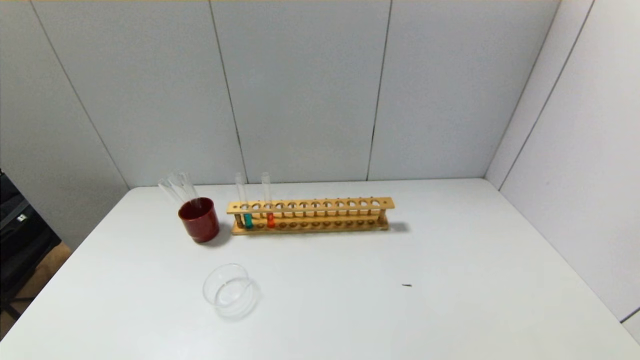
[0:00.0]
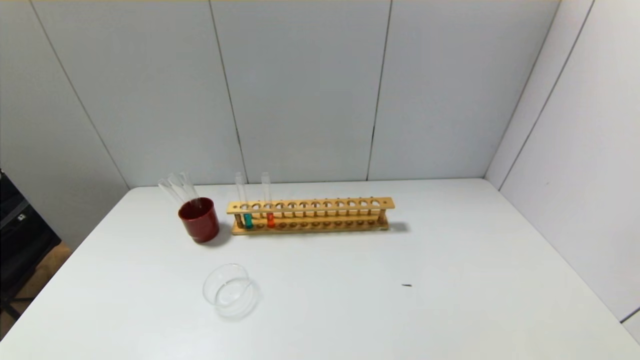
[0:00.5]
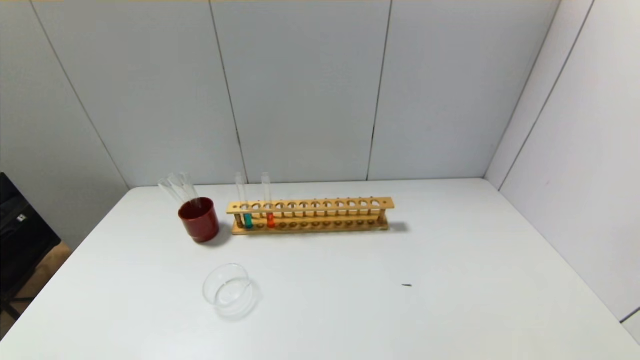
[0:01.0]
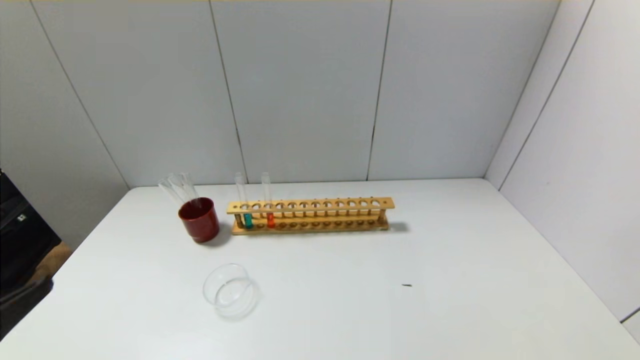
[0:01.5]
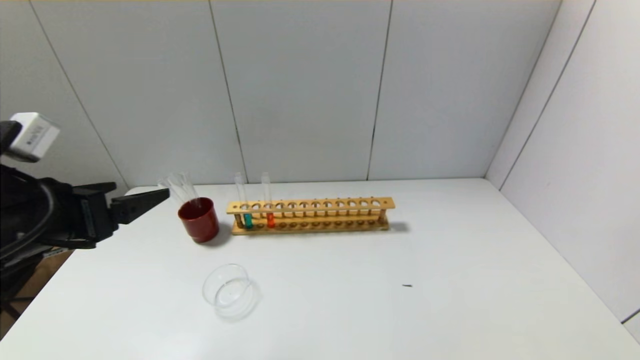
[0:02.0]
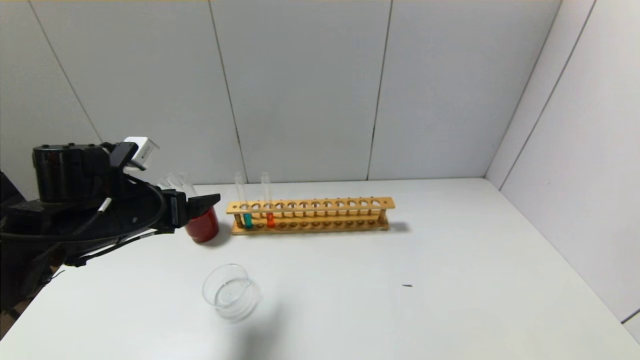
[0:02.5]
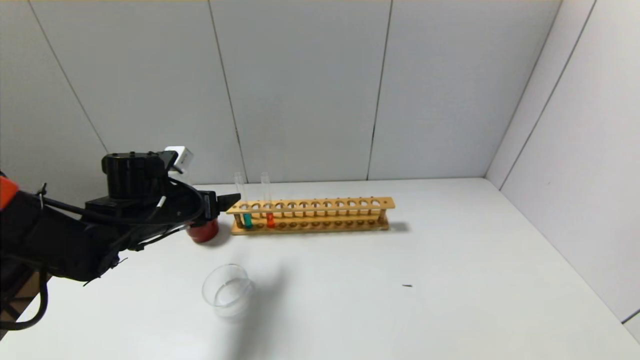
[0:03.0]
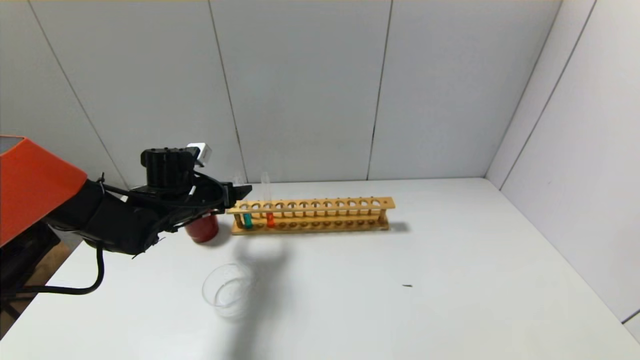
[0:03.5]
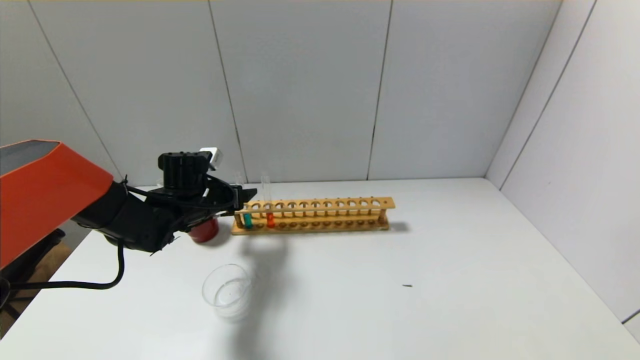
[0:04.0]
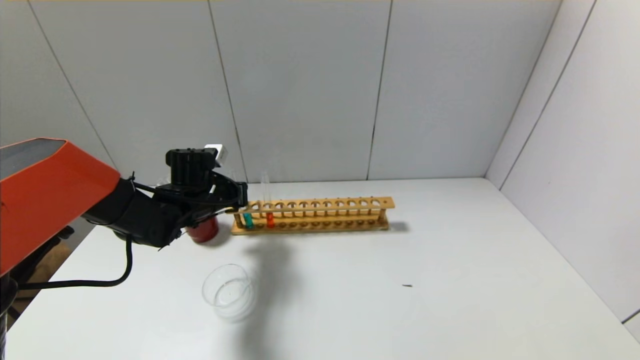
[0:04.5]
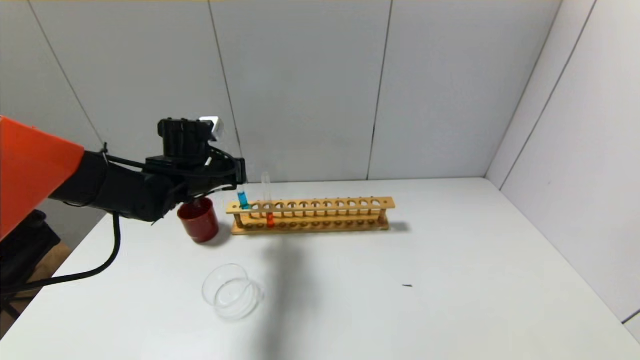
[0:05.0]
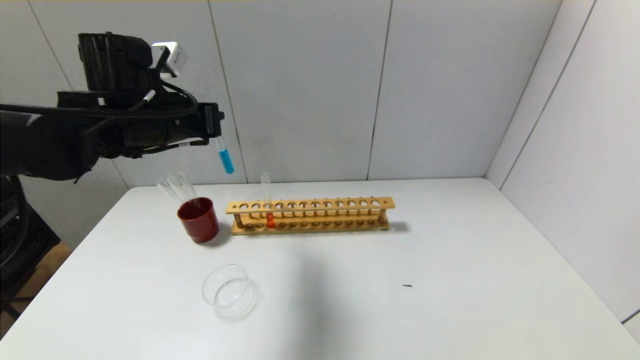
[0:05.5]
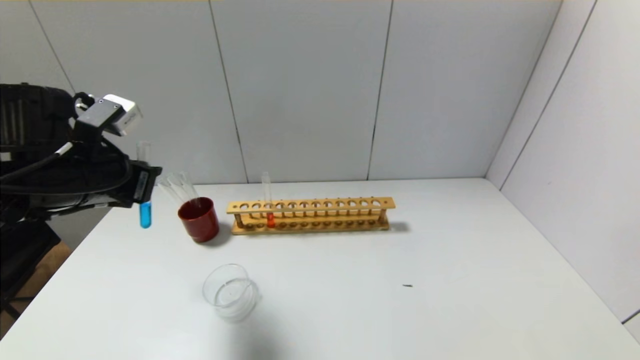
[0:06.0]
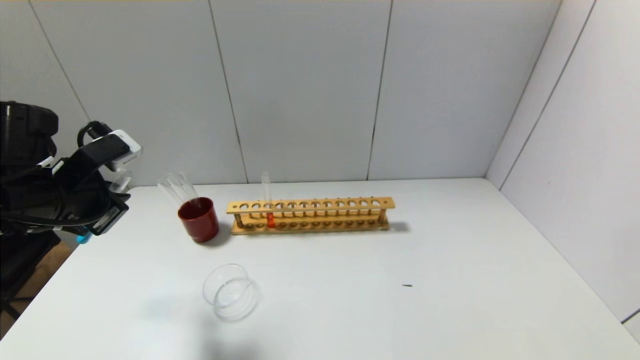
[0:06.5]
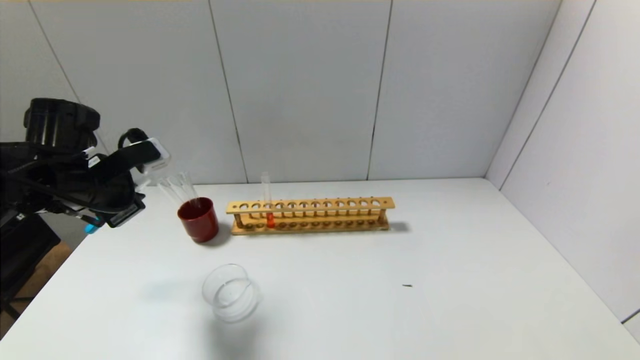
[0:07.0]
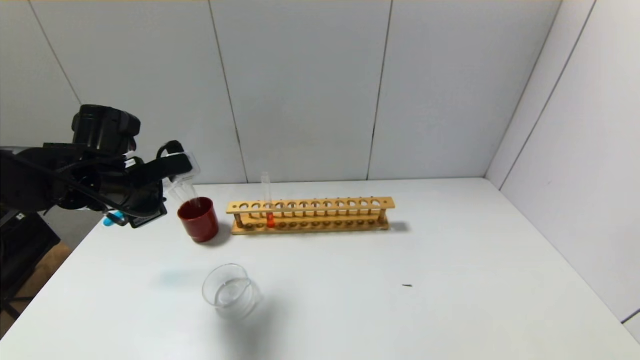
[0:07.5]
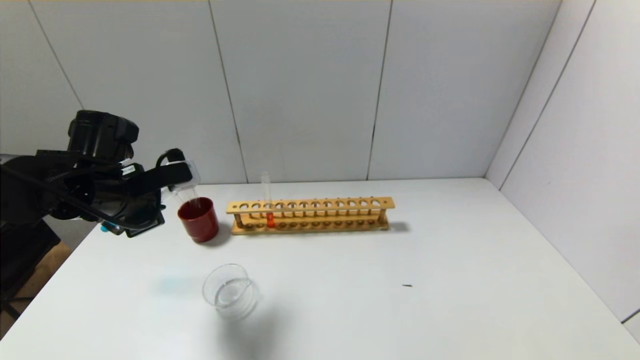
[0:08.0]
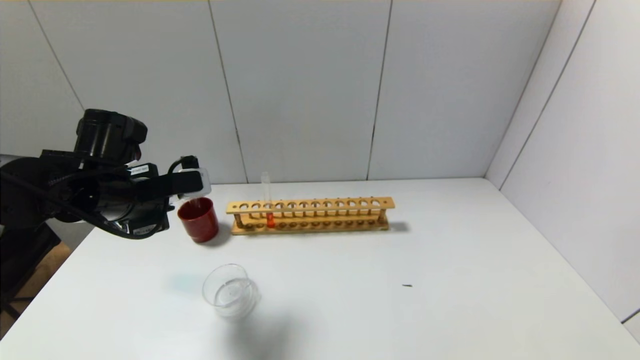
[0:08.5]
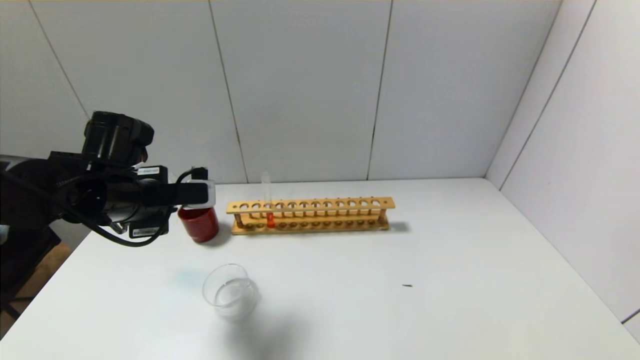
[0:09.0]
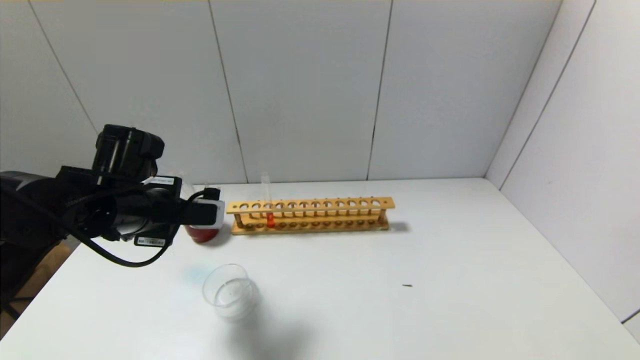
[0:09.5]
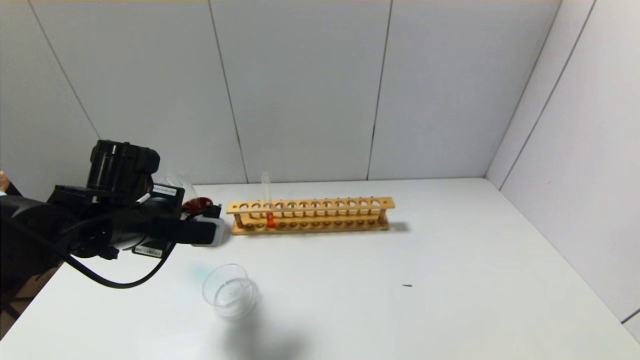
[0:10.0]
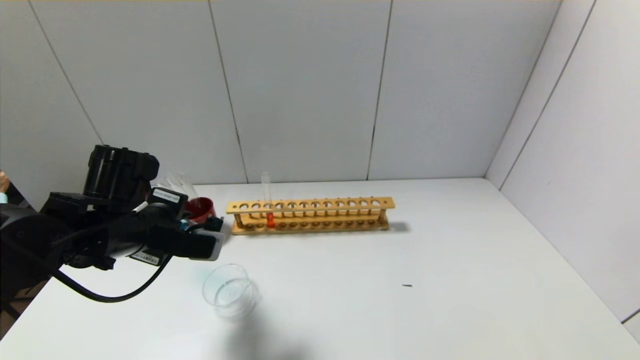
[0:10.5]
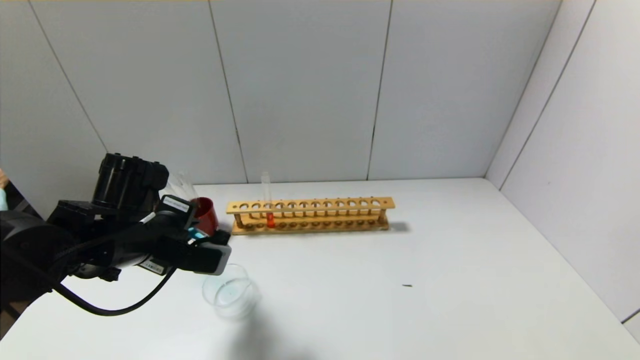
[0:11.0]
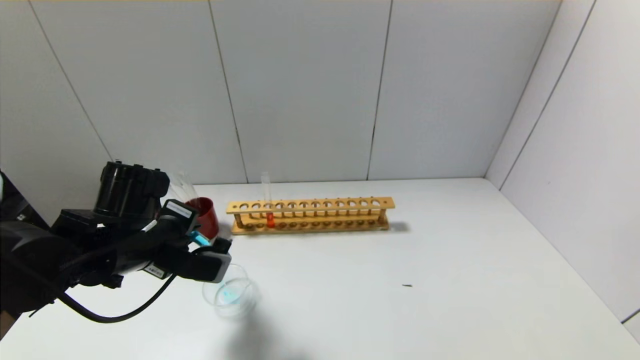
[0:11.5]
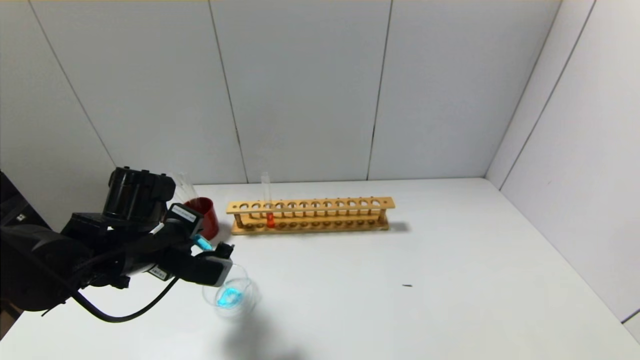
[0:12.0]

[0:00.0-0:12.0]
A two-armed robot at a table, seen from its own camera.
Step, 0:00.0 to 0:04.5: Grasp the blue reagent with the left gripper.
0:00.0 to 0:02.0: The left gripper heads forward and upward, covering some 25 cm.
0:02.0 to 0:04.0: The left gripper shifts about 25 cm forward and downward.
0:04.0 to 0:06.0: The left gripper heads backward, upward and to the left, covering about 20 cm, and closes its fingers.
0:06.0 to 0:08.0: The left gripper moves roughly 5 cm.
0:08.0 to 0:10.0: The left gripper shifts by approximately 5 cm.
0:10.0 to 0:12.0: The grippers make only small movements.

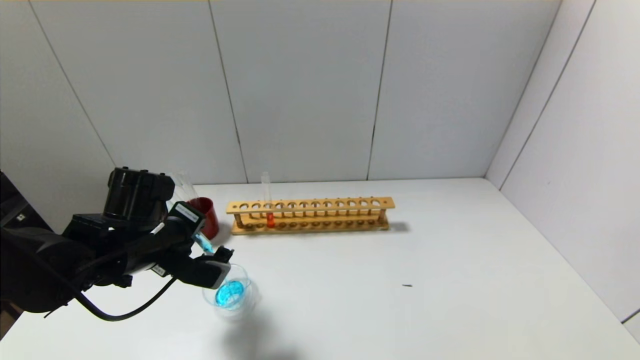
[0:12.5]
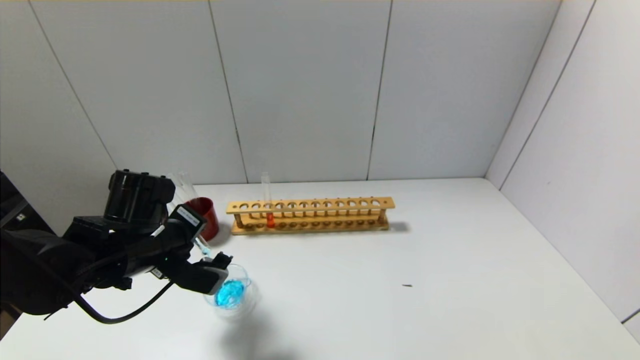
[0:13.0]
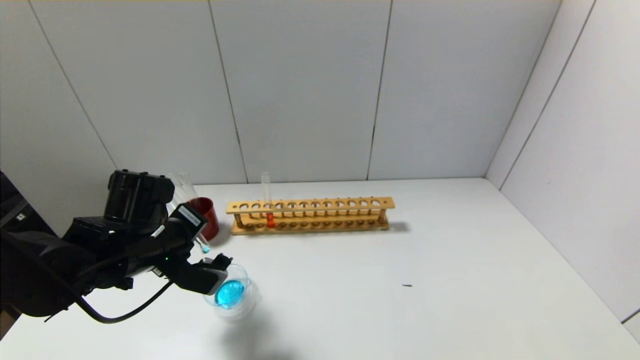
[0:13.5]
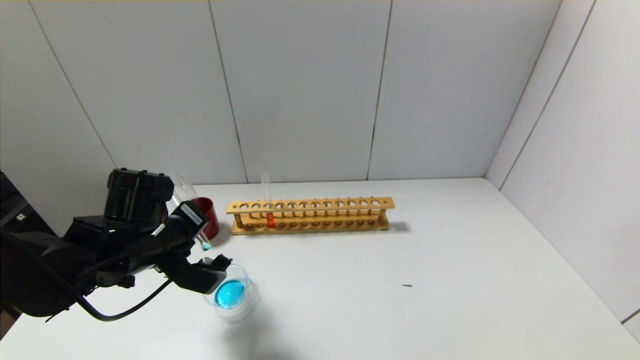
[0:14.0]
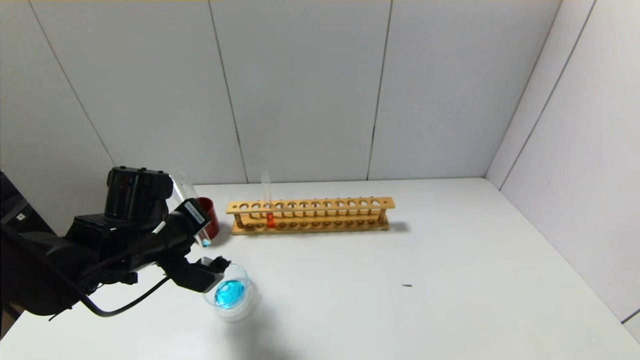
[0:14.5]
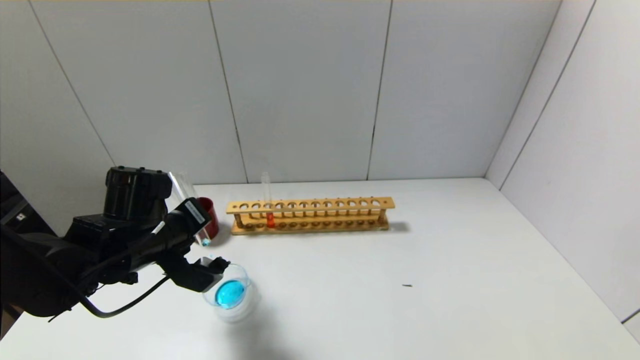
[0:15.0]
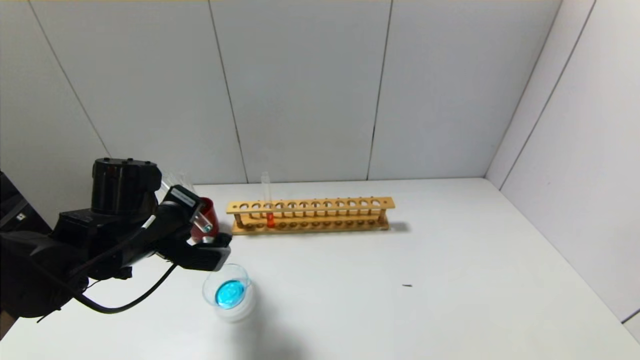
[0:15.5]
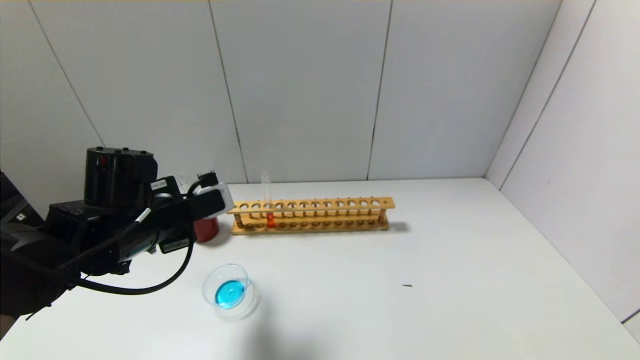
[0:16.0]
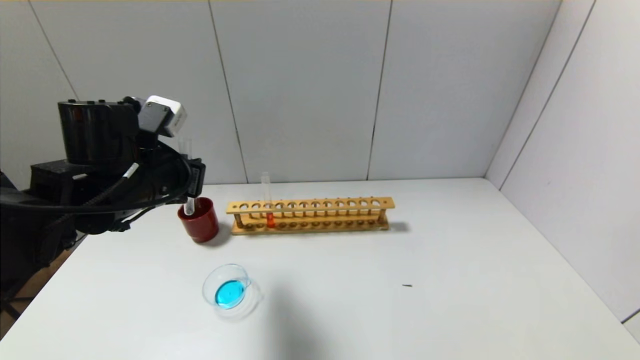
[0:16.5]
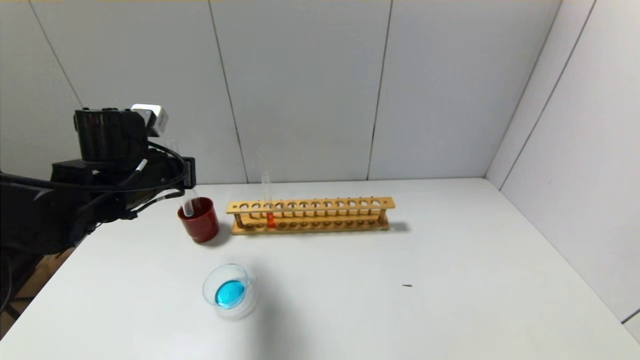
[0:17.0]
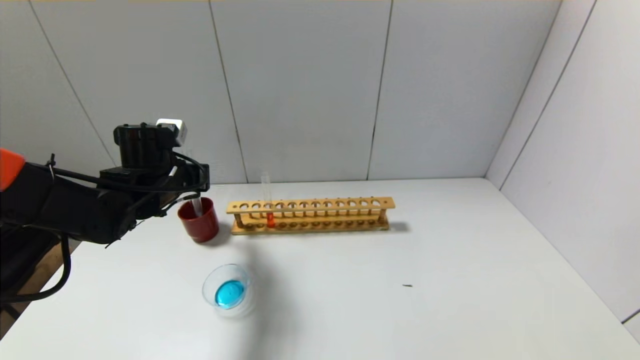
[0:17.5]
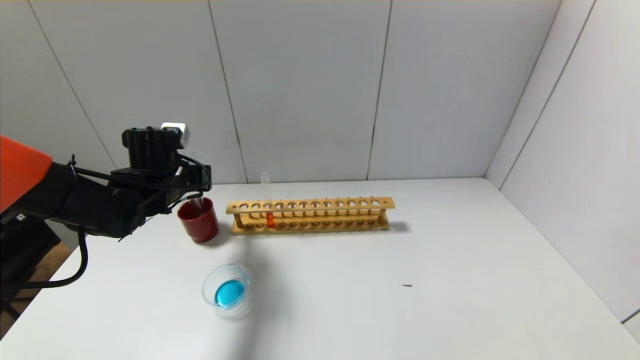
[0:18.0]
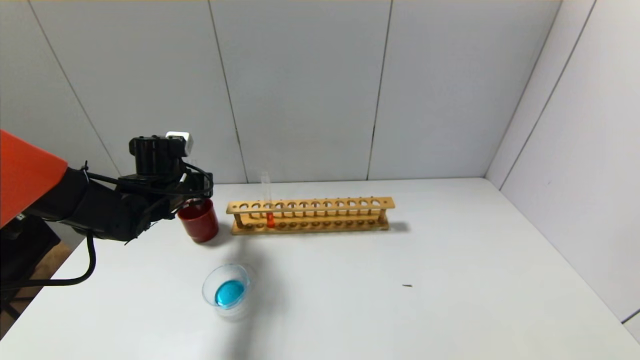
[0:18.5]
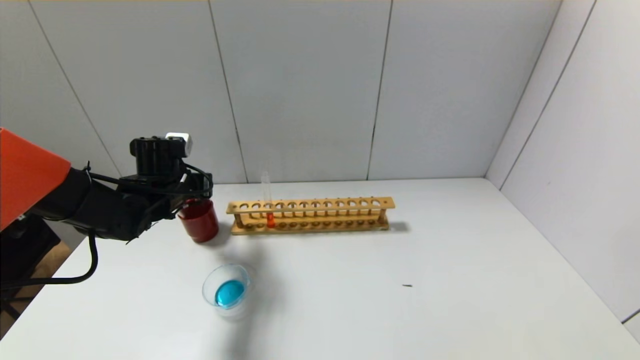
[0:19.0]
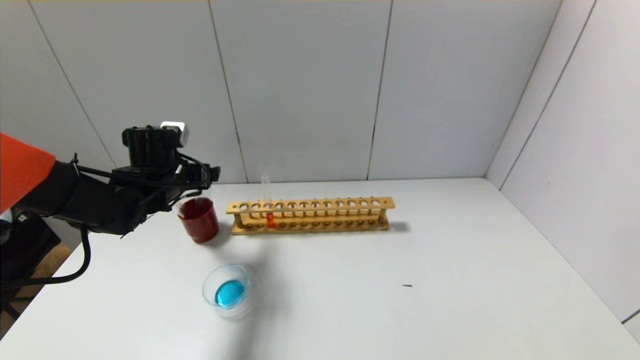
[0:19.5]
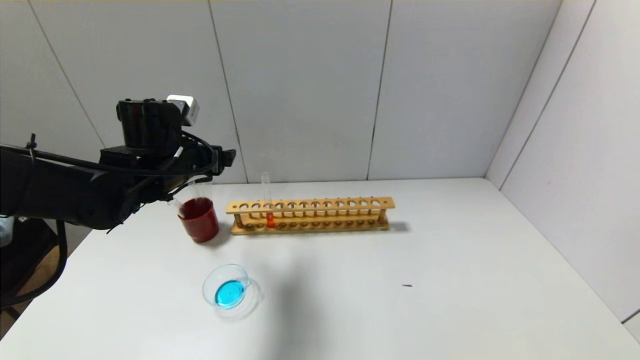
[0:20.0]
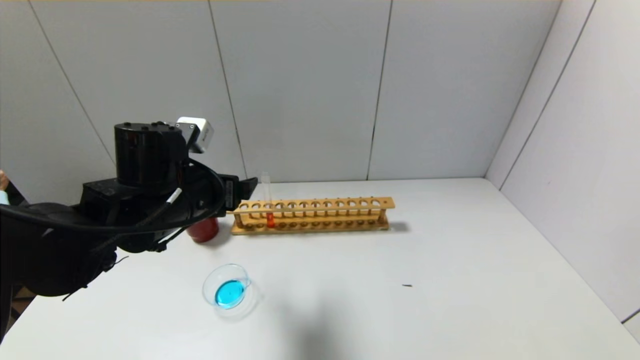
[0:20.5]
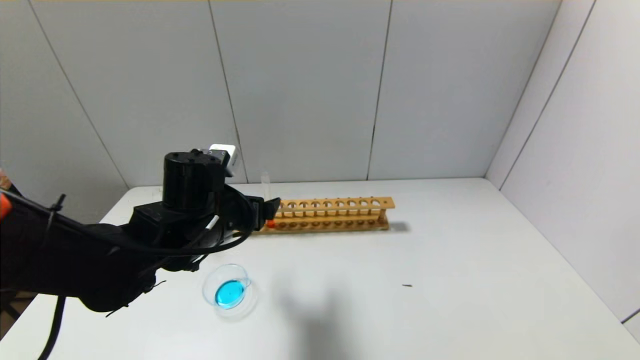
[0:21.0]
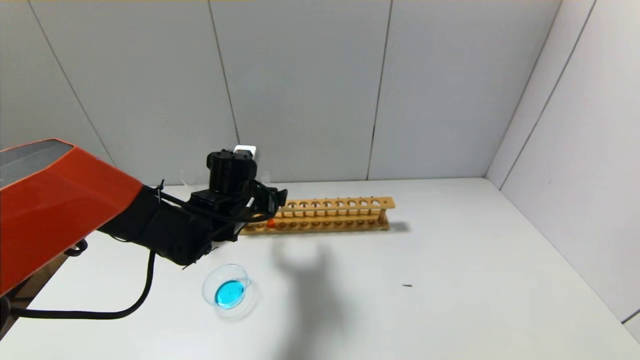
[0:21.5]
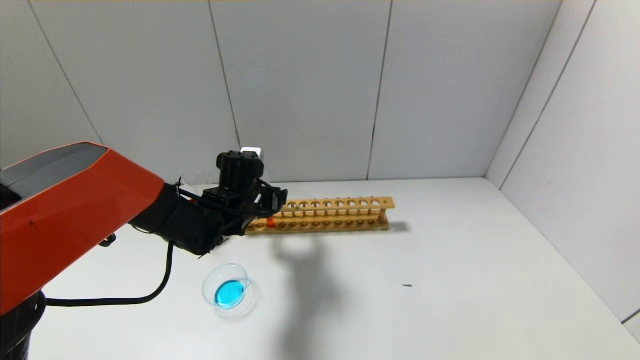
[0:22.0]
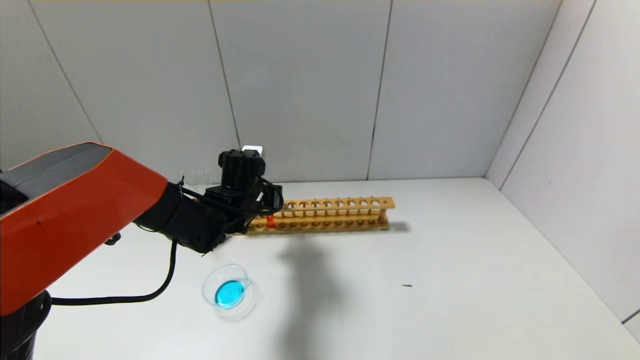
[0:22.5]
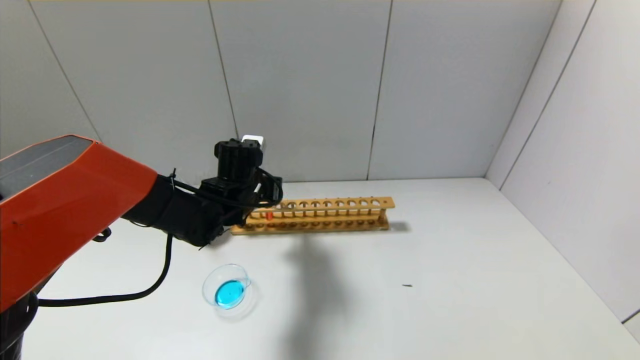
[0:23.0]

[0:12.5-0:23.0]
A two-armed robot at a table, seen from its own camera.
Step, 0:12.5 to 0:15.5: Pour the blue reagent into the graduated cylinder with the left gripper.
Step, 0:16.0 to 0:19.0: Place the test tube into the brown cup with the left gripper.
Step, 0:19.5 to 0:22.5: Grasp the red reagent with the left gripper.
0:12.5 to 0:14.5: The grippers move only a little.
0:14.5 to 0:16.5: The left gripper heads upward, covering about 10 cm.
0:16.5 to 0:19.0: The left gripper travels forward and downward by about 15 cm, and opens its fingers.
0:19.0 to 0:21.0: The left gripper is displaced to the right and backward by roughly 15 cm, and opens its fingers.
0:21.0 to 0:23.0: The left gripper moves forward, approximately 10 cm, and closes up.
